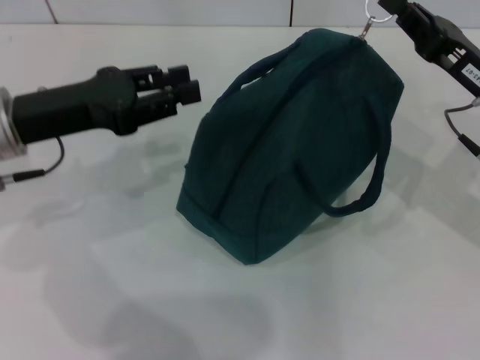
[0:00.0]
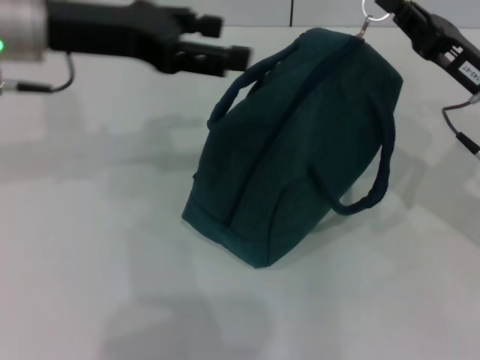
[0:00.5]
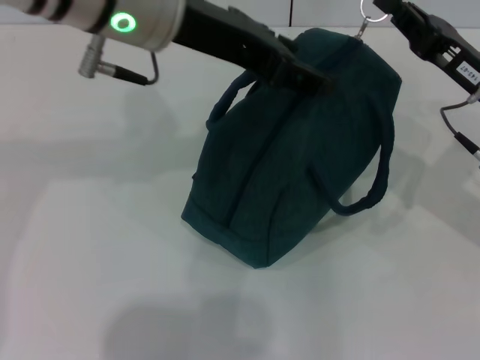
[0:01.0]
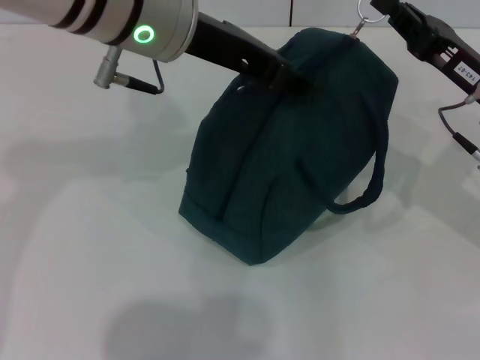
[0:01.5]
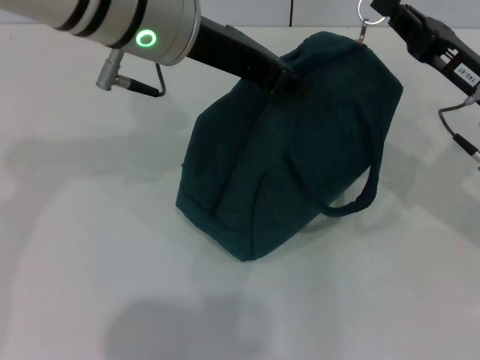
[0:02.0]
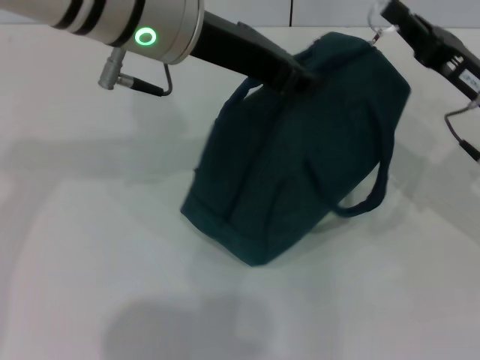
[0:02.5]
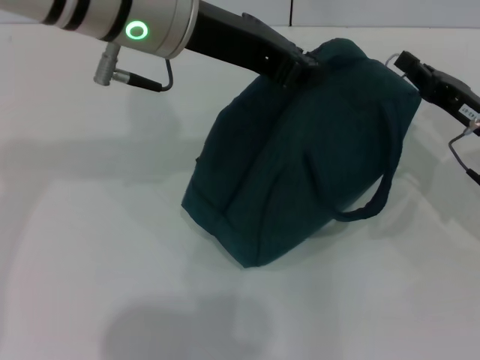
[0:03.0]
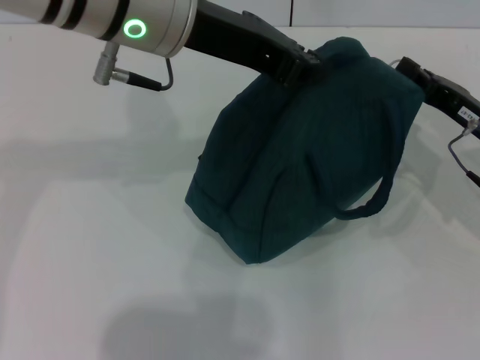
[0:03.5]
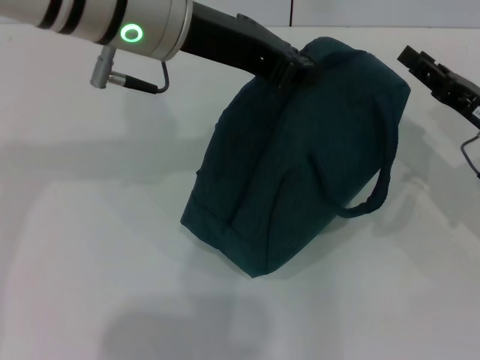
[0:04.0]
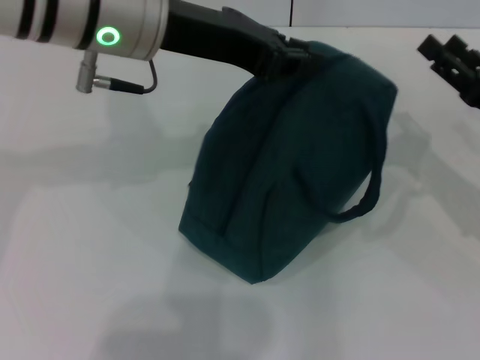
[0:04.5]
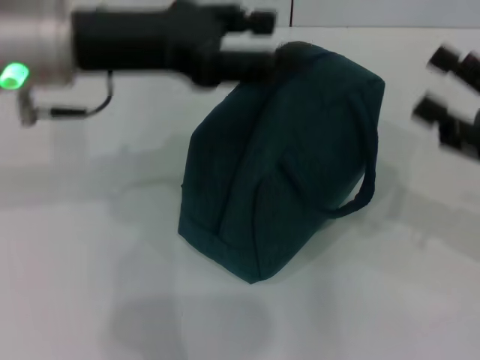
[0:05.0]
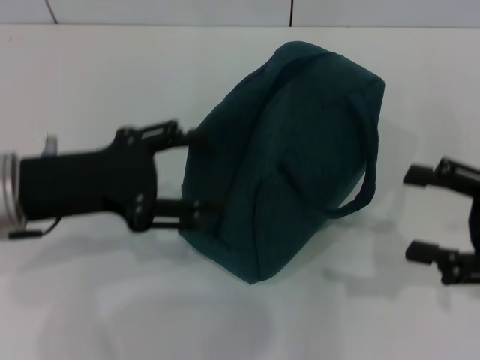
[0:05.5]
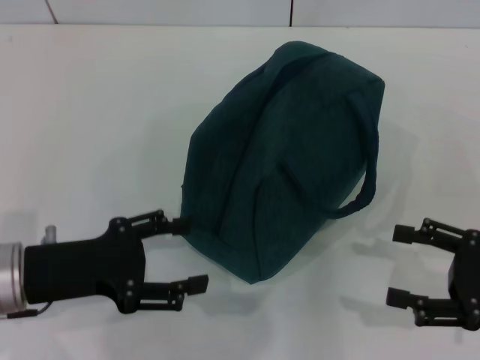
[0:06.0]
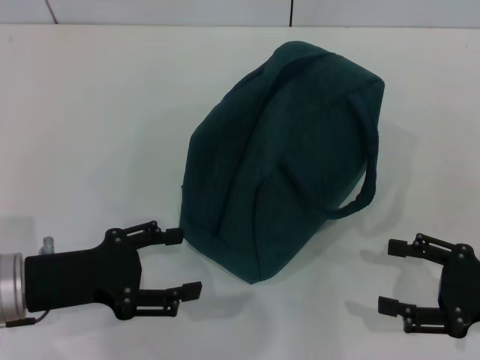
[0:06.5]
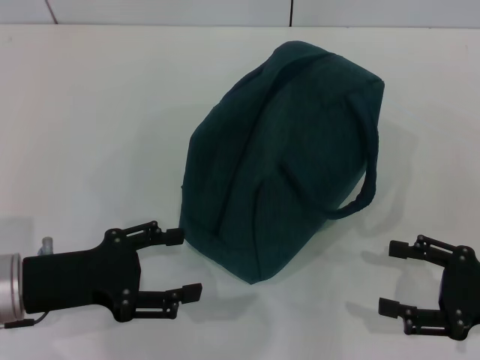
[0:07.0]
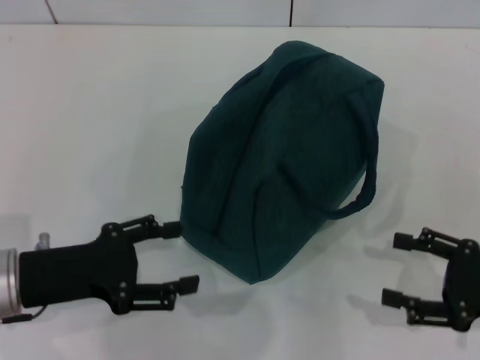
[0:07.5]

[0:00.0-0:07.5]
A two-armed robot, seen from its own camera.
Step, 0:00.0 to 0:03.5: Zip up the lunch bag with your right hand.
0:00.0 to 0:02.0: The left gripper travels to the right and upward by about 20 cm, and opens, then closes once more.
0:02.0 to 0:04.0: The left gripper closes its fingers; the right gripper changes place by approximately 5 cm.
0:04.0 to 0:05.5: The left gripper heads to the left, downward and backward, covering roughly 20 cm, and opens its fingers. The right gripper moves backward, about 10 cm, and opens.
0:05.5 to 0:07.5: Both grippers move downward, some 5 cm.
